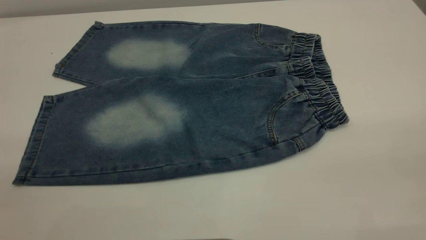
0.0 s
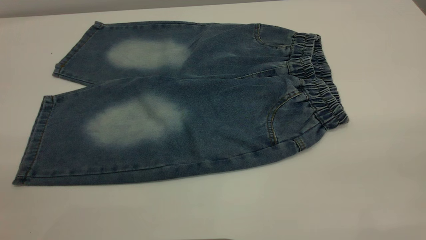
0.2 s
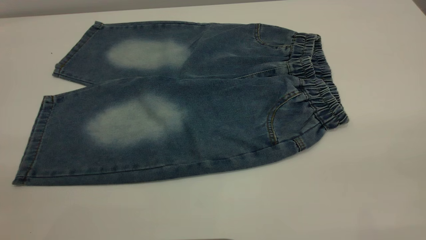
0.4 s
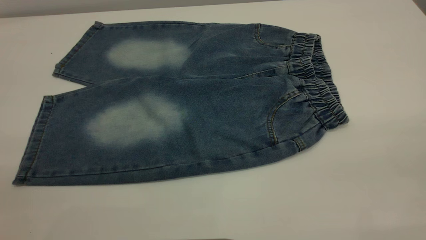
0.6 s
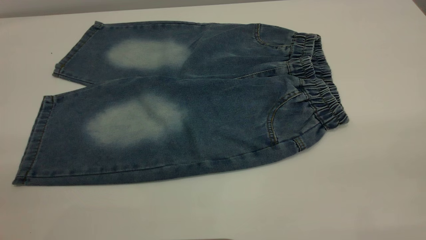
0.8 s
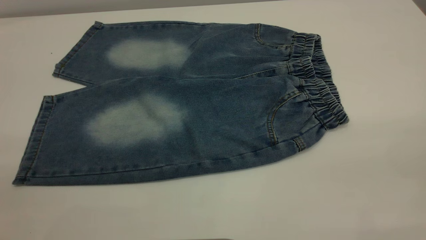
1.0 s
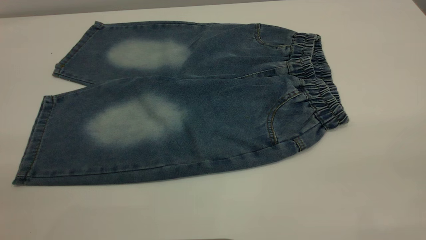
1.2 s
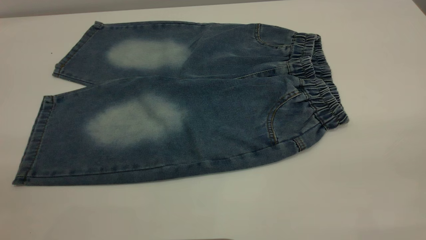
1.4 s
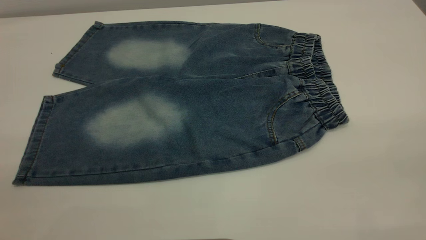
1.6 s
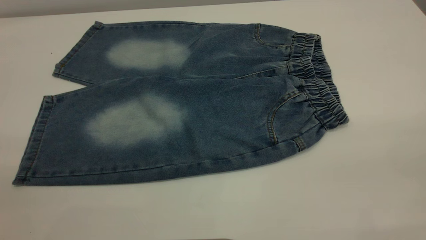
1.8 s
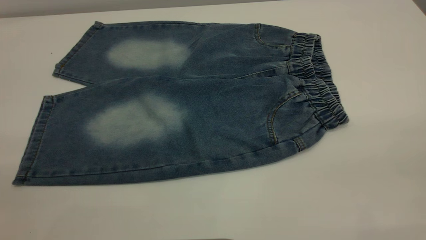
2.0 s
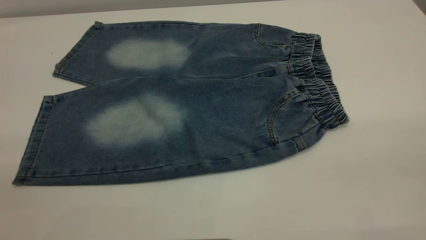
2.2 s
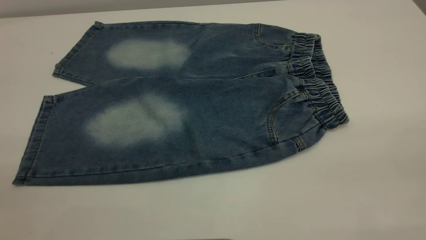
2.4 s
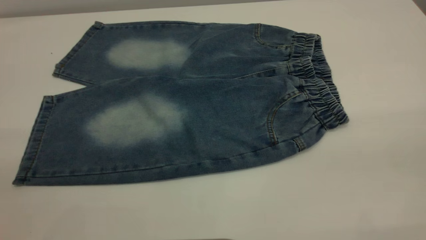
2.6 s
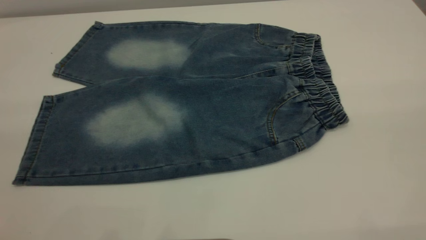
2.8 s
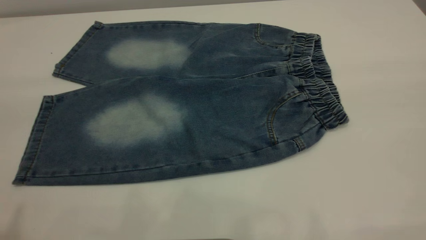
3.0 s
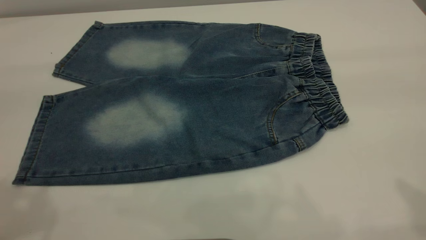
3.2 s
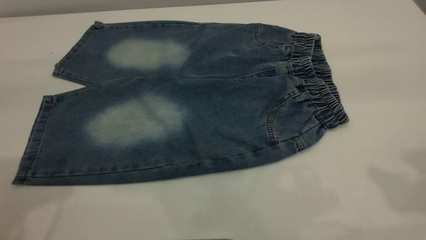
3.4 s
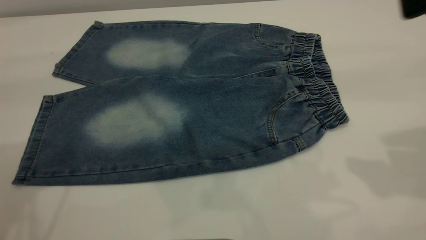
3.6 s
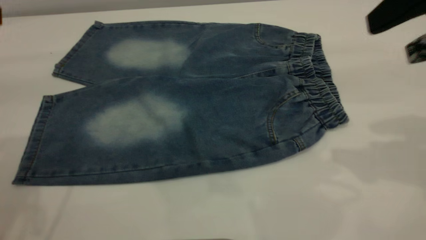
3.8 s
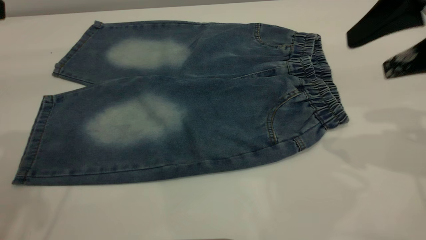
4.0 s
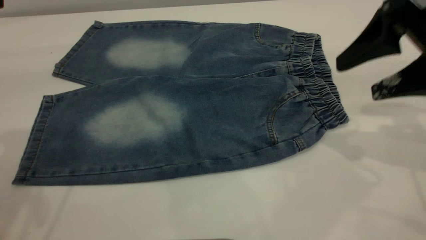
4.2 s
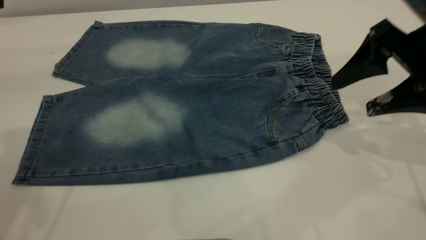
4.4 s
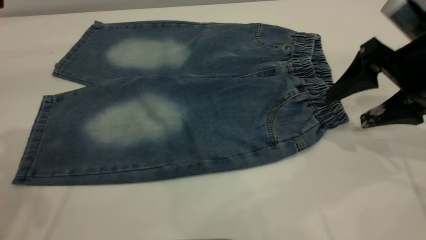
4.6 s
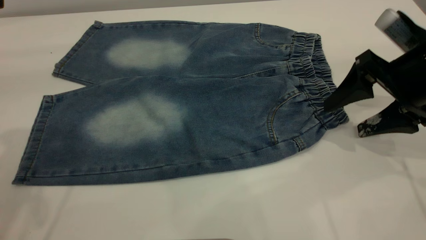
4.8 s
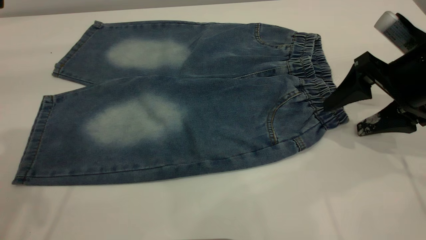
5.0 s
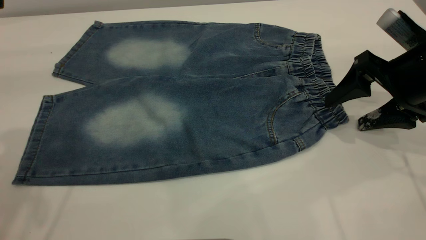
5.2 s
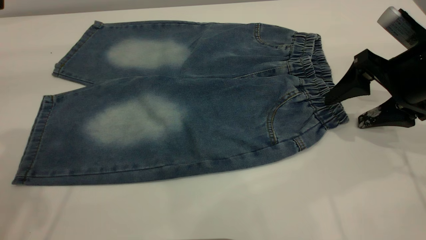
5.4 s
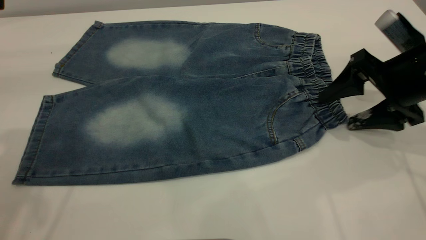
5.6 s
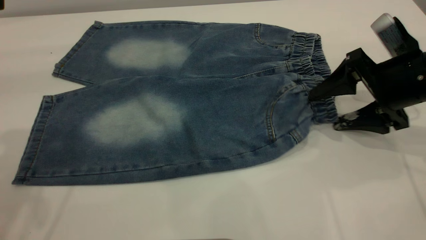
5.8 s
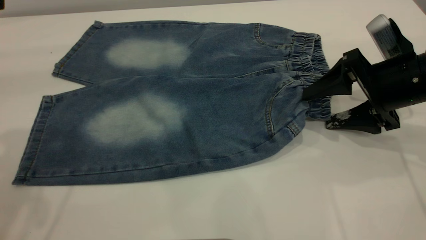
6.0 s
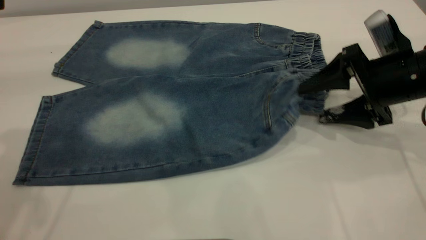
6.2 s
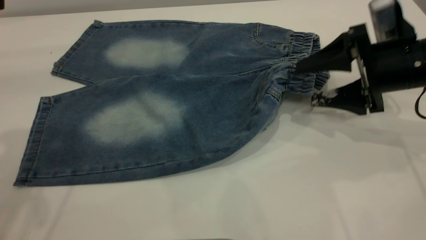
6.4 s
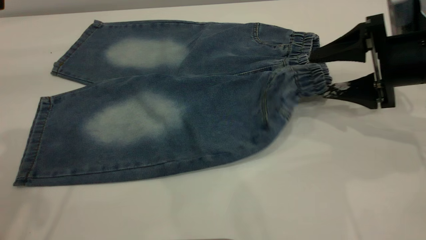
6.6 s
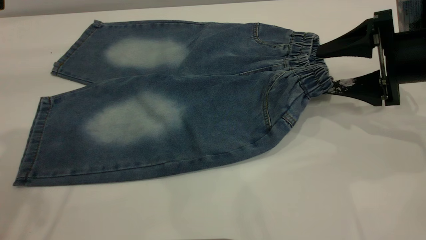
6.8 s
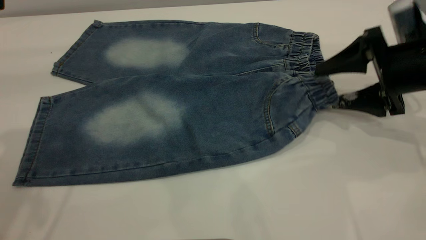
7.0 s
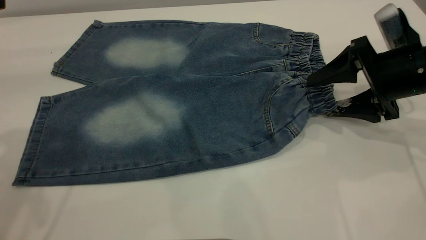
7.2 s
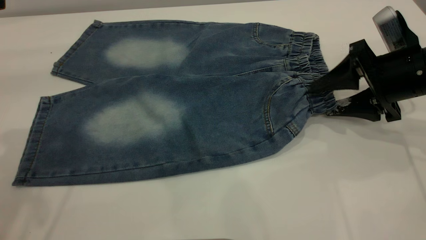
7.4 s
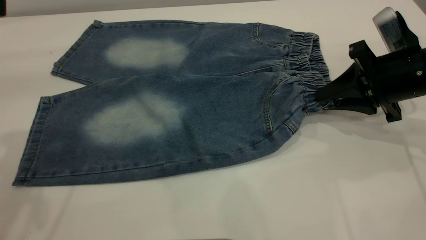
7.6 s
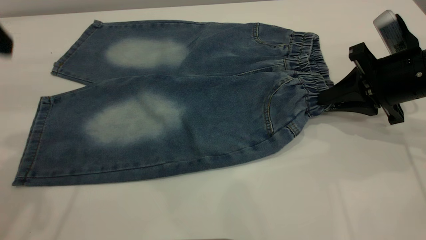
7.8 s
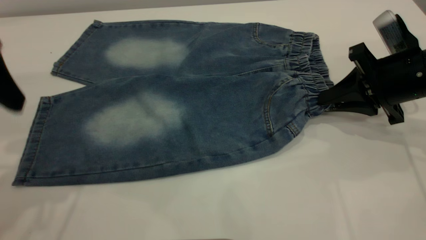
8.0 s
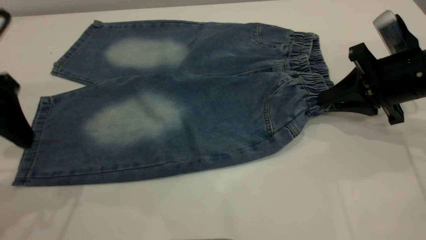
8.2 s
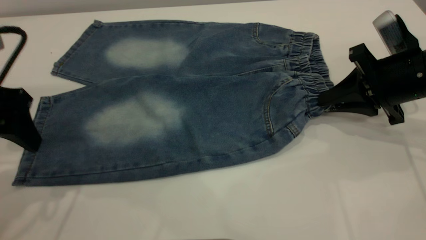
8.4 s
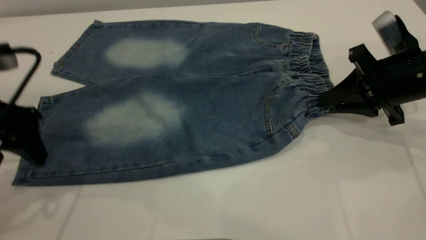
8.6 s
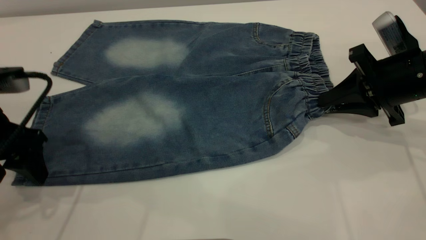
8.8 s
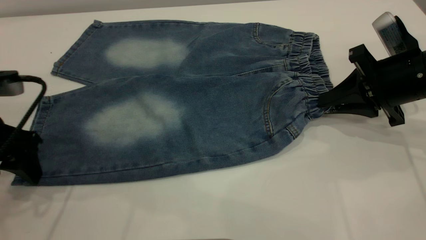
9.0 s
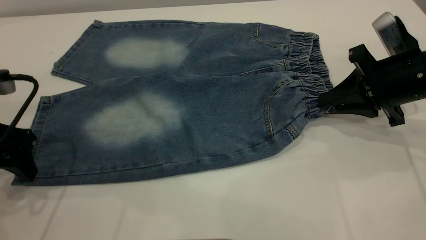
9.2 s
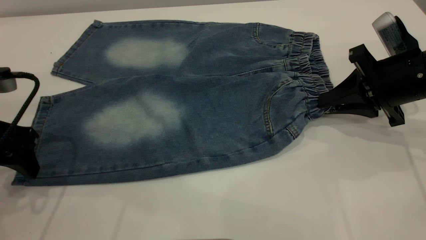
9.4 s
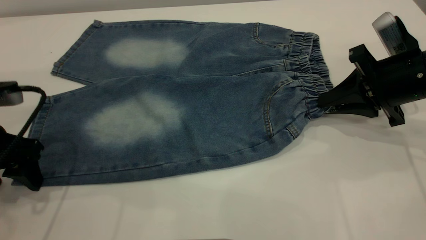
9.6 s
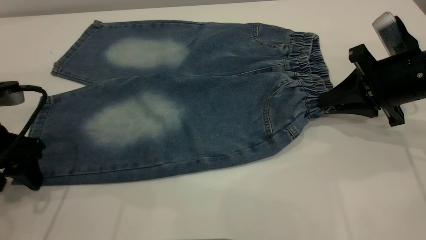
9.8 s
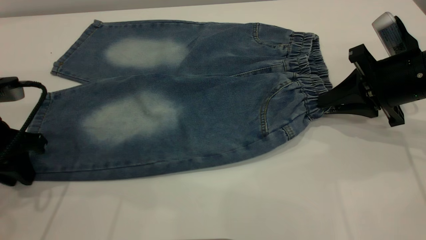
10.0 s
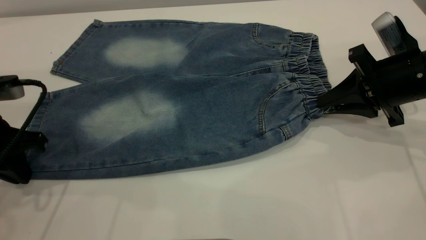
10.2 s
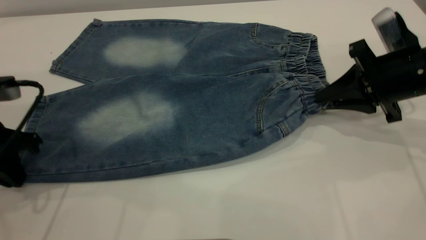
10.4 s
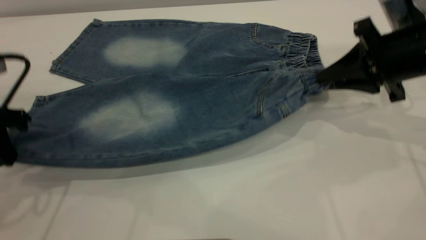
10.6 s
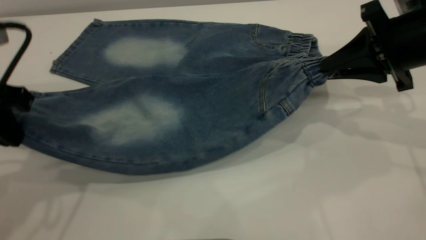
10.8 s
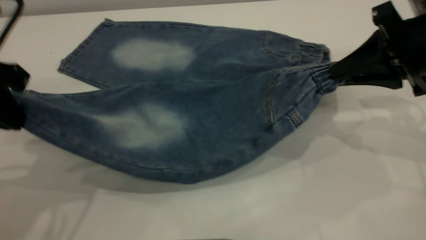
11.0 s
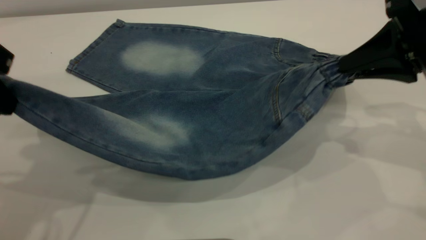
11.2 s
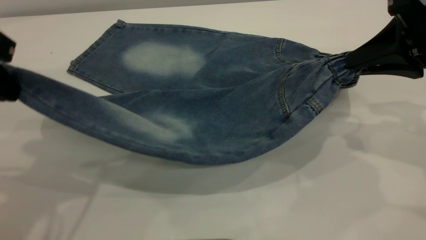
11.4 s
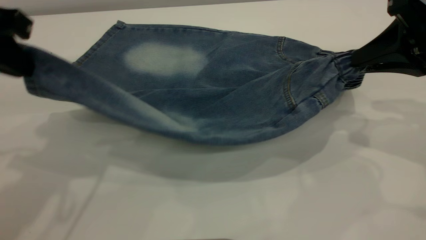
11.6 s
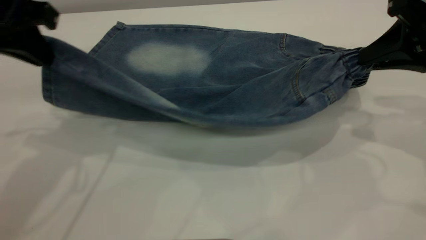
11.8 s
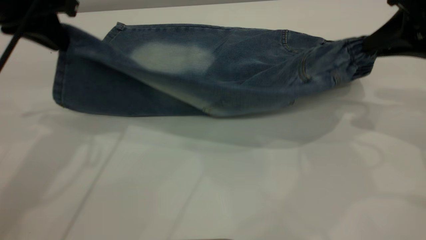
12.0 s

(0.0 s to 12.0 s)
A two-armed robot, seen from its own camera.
0.0 s - 1.6 s: Both grippers stay about where they are.
3.0 s - 4.4 s: The right gripper shifts roughly 30 cm downward and forward.
4.4 s - 6.0 s: The right gripper travels downward by about 5 cm.
6.0 s - 7.6 s: The right gripper closes its fingers.
7.6 s - 9.0 s: The left gripper goes roughly 15 cm downward.
9.0 s - 10.4 s: The left gripper closes its fingers.
10.4 s - 12.0 s: The left gripper is displaced upward, forward and to the right by approximately 15 cm, while the right gripper moves upward, about 10 cm.

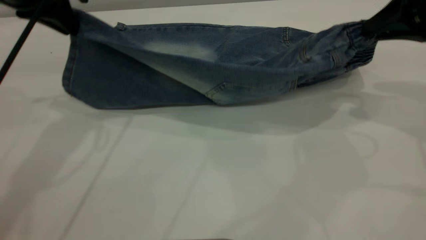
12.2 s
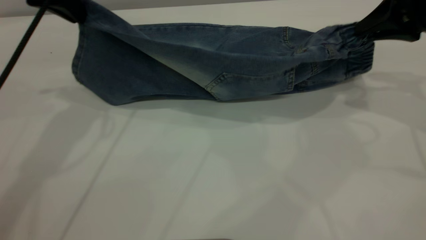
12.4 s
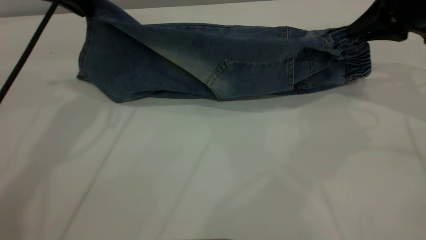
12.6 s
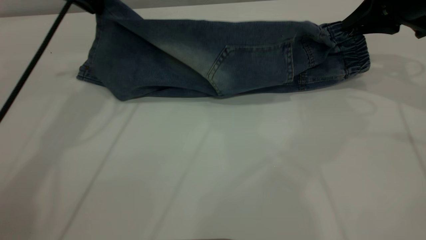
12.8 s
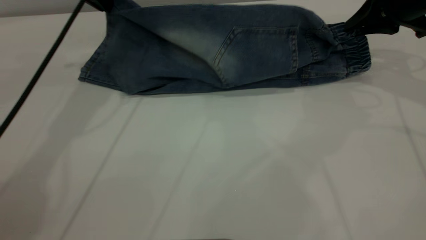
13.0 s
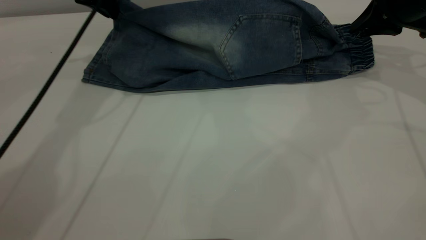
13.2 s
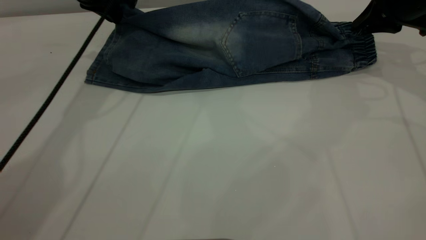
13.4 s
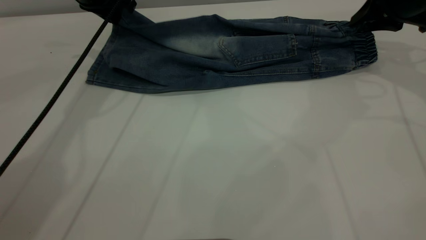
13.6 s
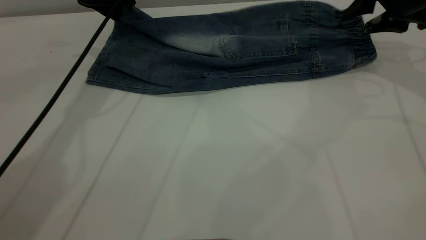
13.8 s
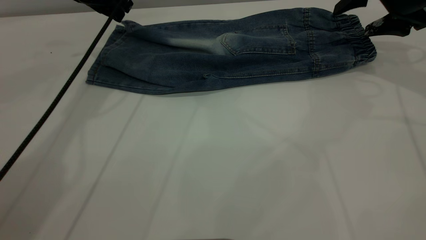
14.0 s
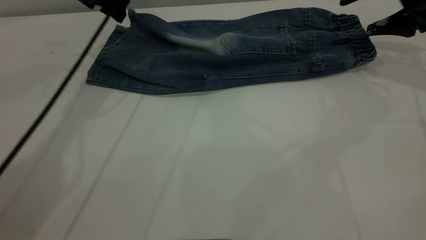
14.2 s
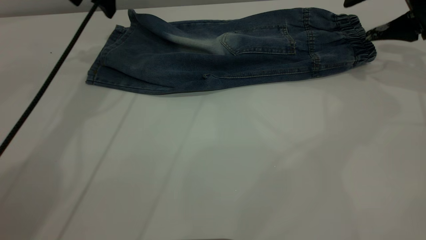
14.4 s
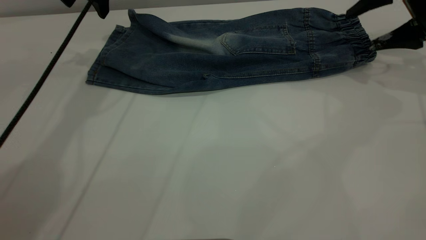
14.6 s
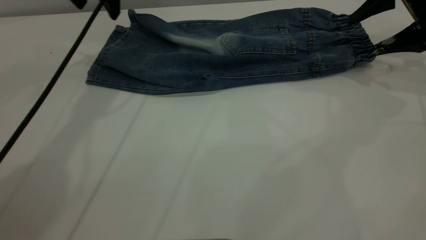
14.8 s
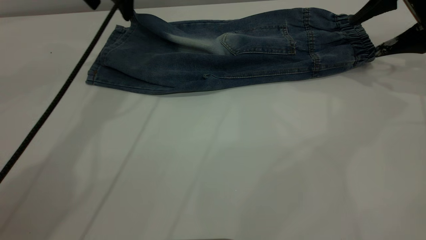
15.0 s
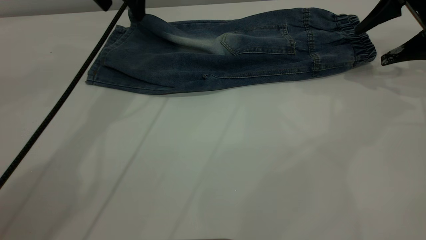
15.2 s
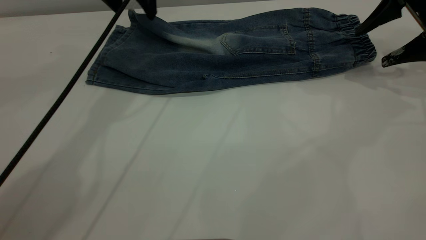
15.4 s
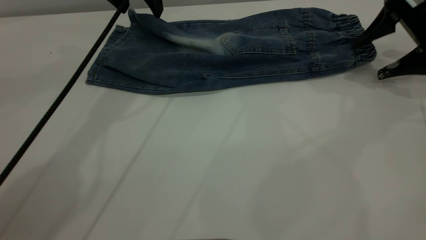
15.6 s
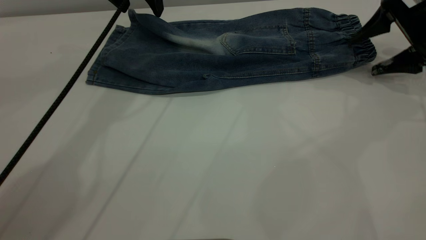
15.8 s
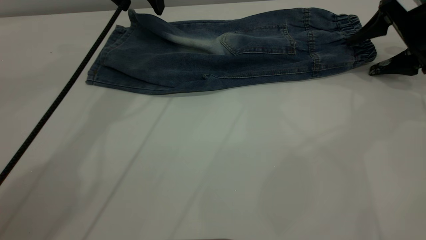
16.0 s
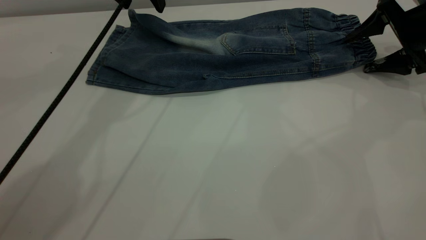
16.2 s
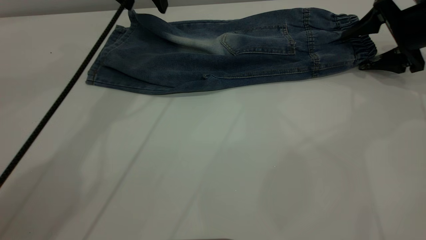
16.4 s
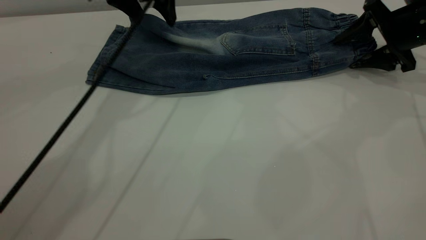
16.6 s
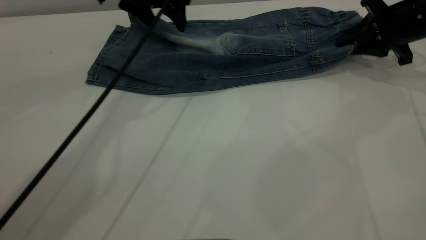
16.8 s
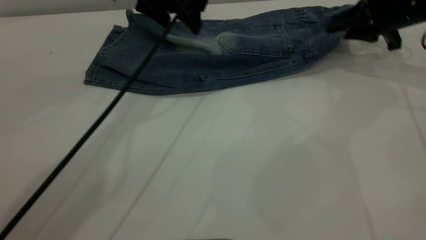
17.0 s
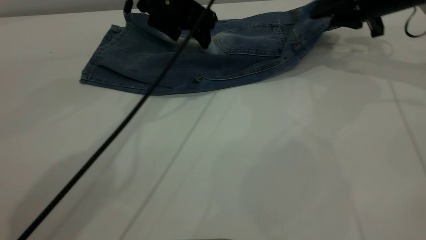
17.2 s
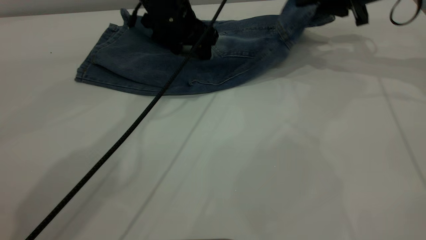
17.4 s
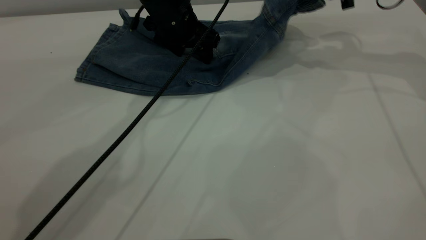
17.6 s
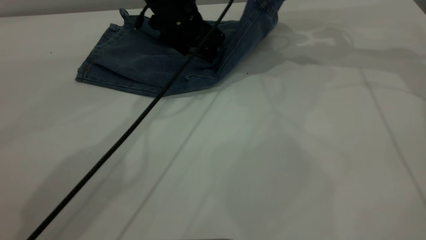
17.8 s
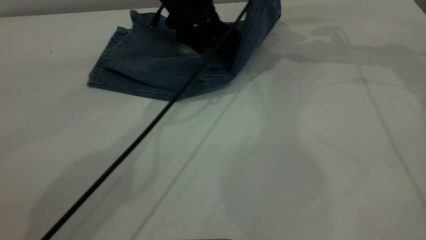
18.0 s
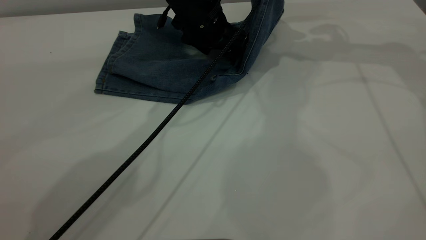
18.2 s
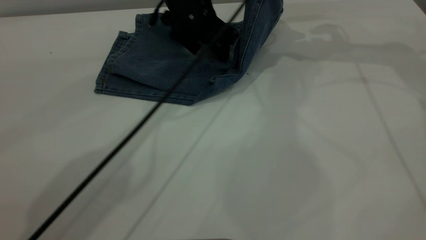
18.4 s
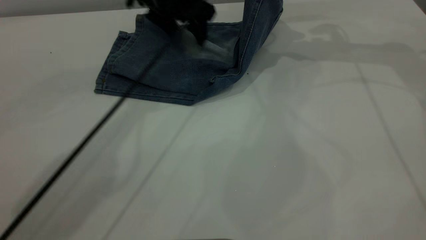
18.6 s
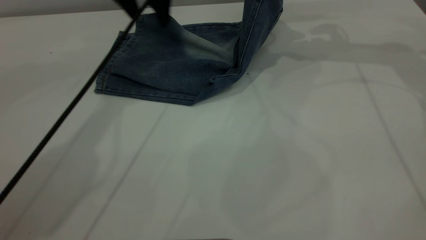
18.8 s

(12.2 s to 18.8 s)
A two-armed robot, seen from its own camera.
Step, 12.2 s - 14.2 s: Fold the bottom of the pants upward.
12.2 s - 13.8 s: The left gripper travels forward and downward by about 15 cm. Meanwhile the right gripper shifts about 10 cm forward, and opens.
13.8 s - 15.4 s: The left gripper moves to the right, roughly 5 cm, and opens up.
15.4 s - 17.2 s: The right gripper shifts approximately 10 cm to the left and forward, and closes up. Meanwhile the left gripper shifts roughly 10 cm downward and to the right.
17.2 s - 18.8 s: The right gripper travels upward by some 10 cm. The left gripper goes about 10 cm to the left and upward.
